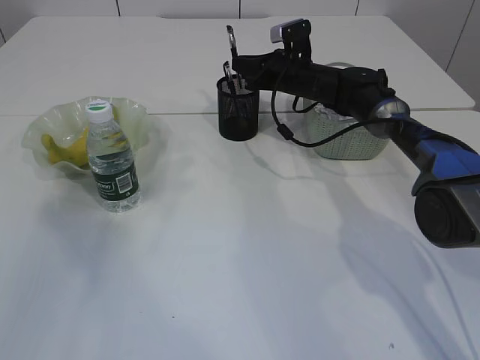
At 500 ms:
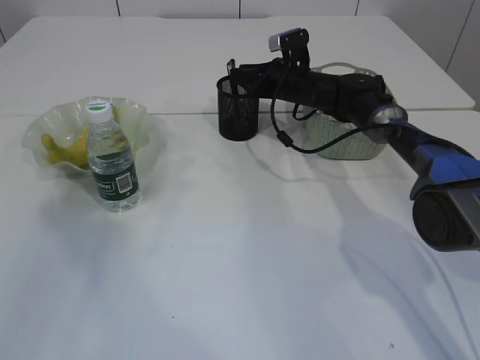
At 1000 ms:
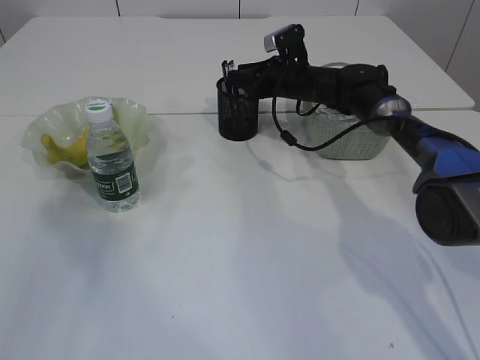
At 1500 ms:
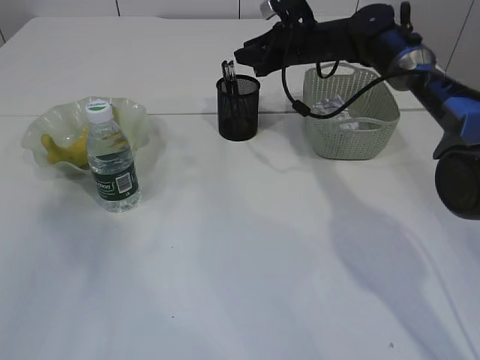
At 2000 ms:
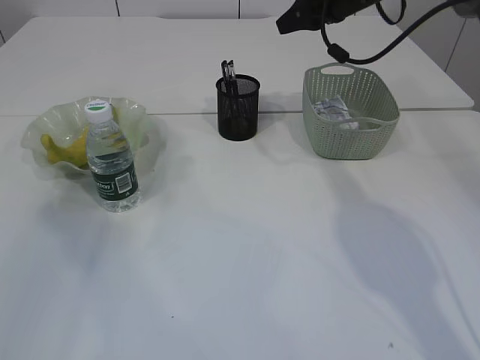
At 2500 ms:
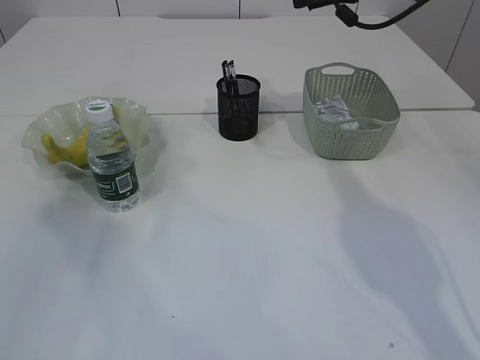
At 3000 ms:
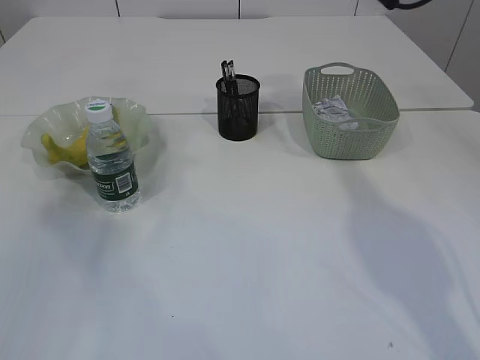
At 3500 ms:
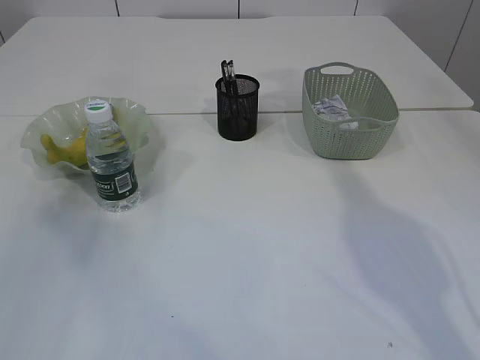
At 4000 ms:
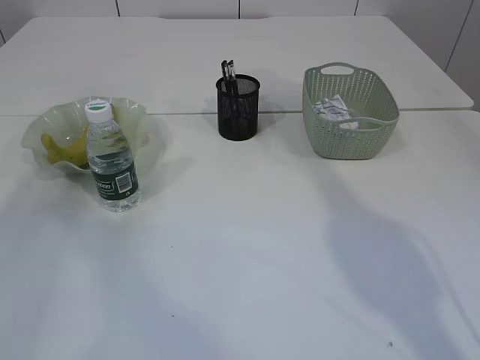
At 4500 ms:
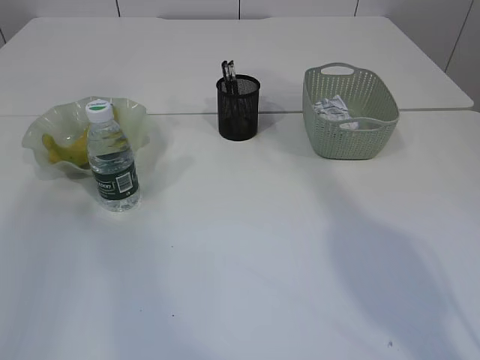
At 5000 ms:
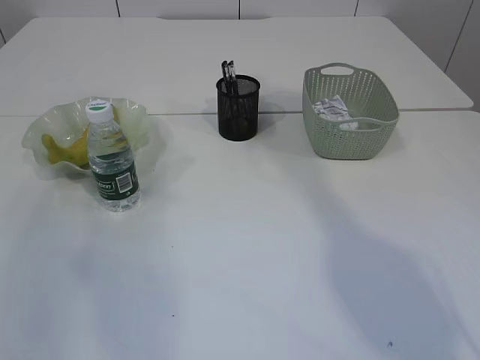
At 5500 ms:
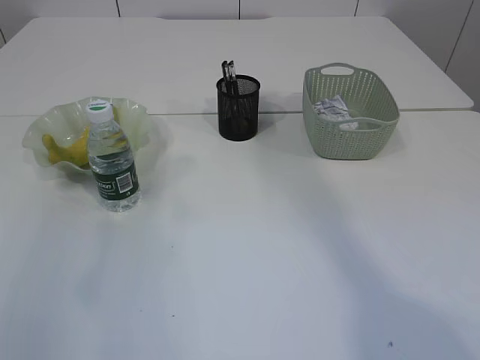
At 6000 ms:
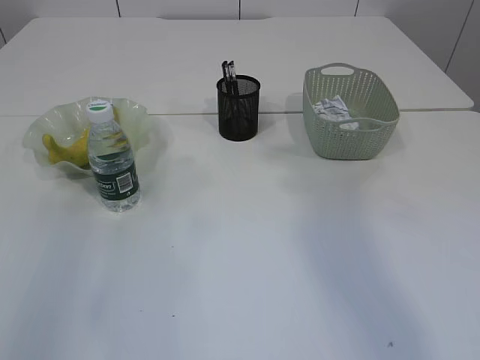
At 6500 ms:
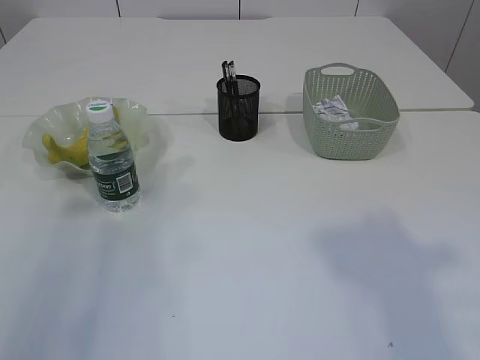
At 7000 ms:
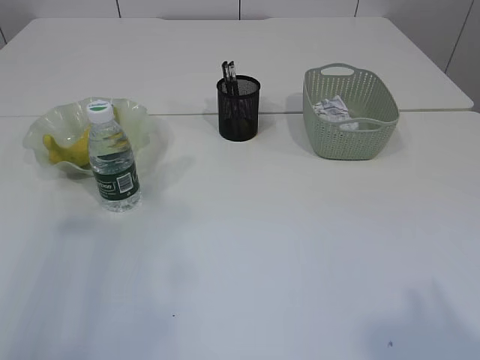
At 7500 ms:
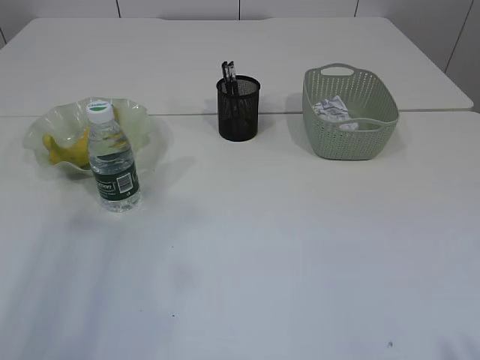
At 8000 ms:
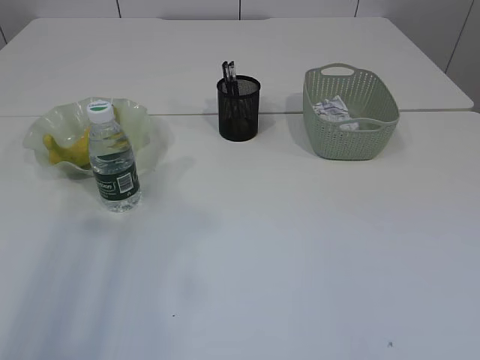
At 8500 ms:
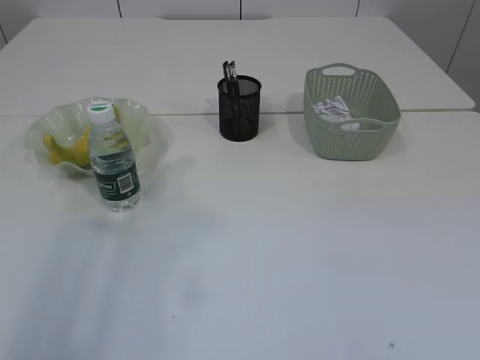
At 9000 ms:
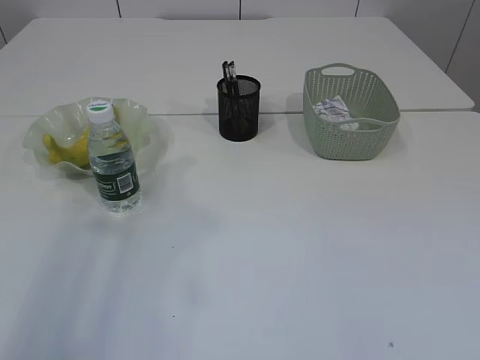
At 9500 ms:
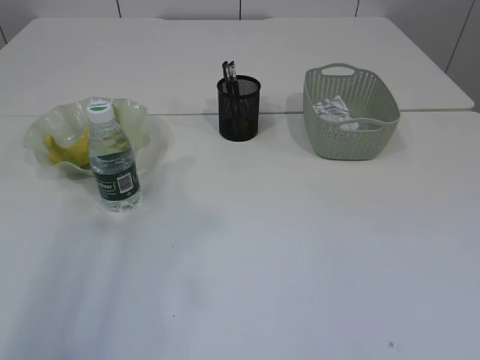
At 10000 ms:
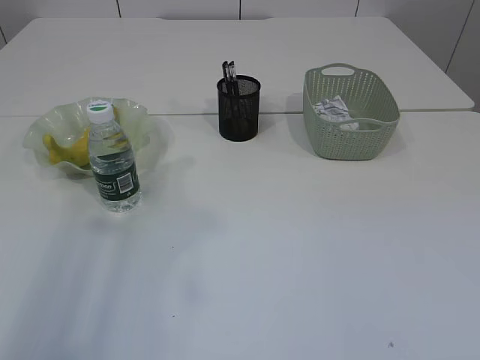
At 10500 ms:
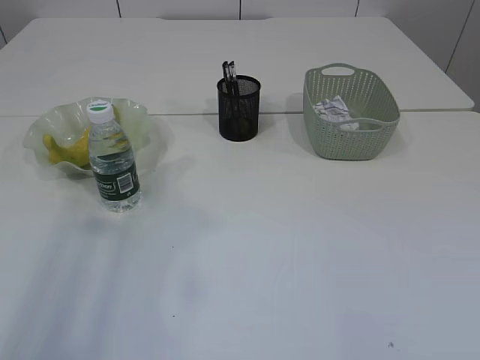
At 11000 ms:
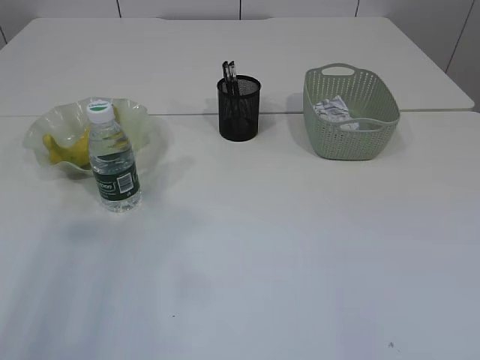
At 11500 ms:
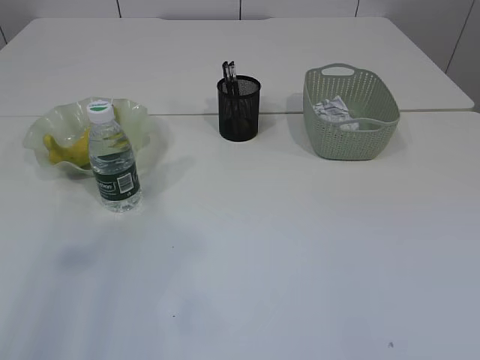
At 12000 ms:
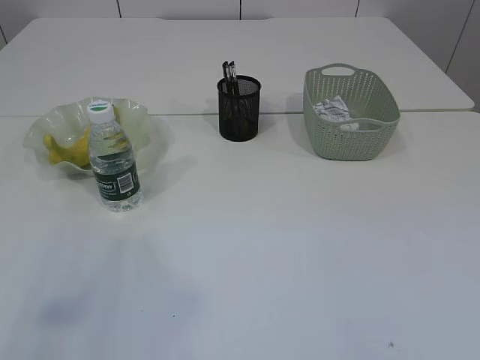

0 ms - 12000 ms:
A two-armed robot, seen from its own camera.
0 ms - 2000 ms: The right gripper shifts some 15 cm upward.
2000 ms - 4000 ms: The right gripper travels upward and to the right by some 15 cm. The left gripper ends up some 5 cm from where it was.
4000 ms - 6000 ms: The right gripper heads backward, covering approximately 25 cm.

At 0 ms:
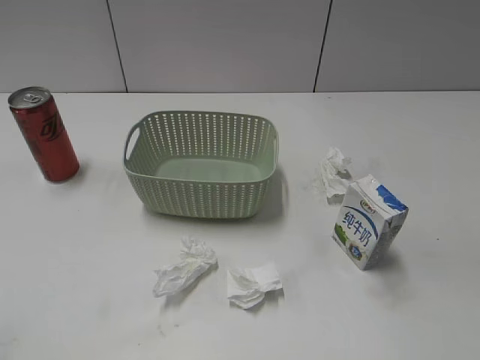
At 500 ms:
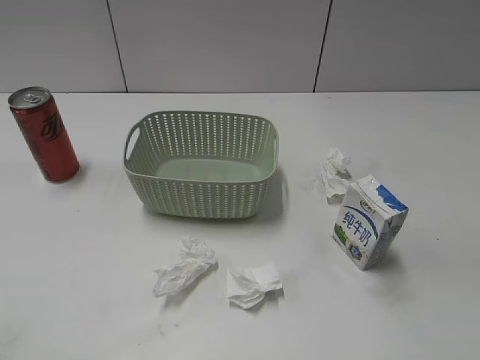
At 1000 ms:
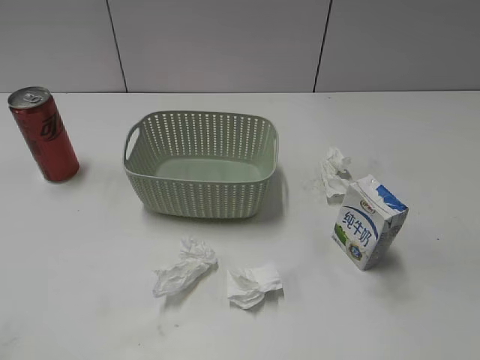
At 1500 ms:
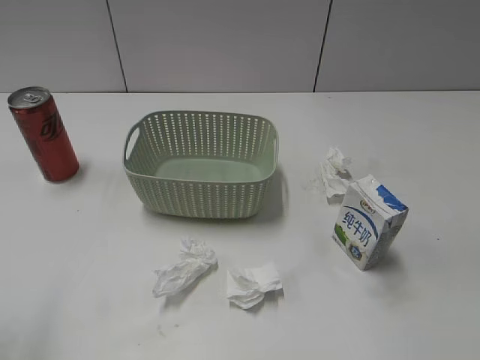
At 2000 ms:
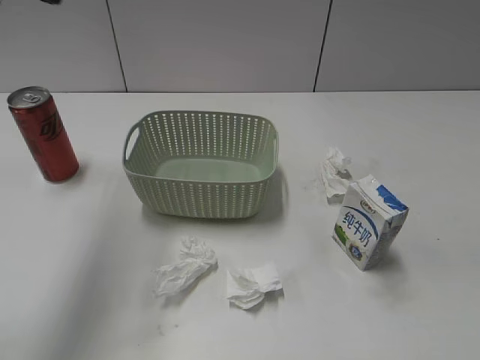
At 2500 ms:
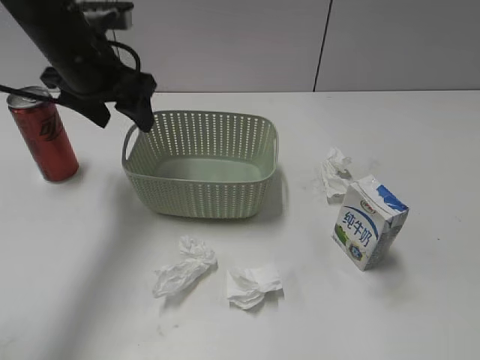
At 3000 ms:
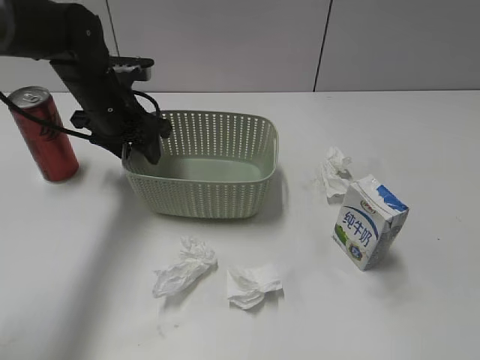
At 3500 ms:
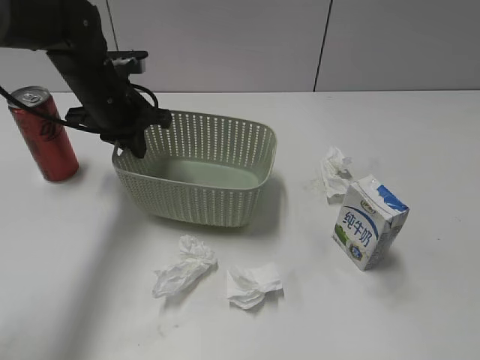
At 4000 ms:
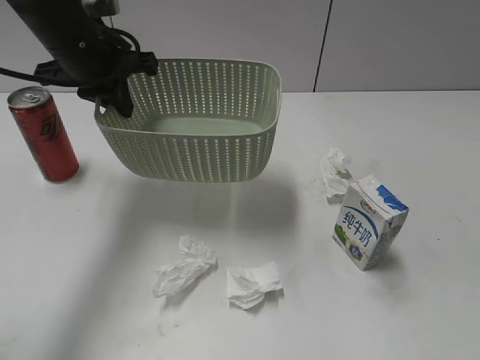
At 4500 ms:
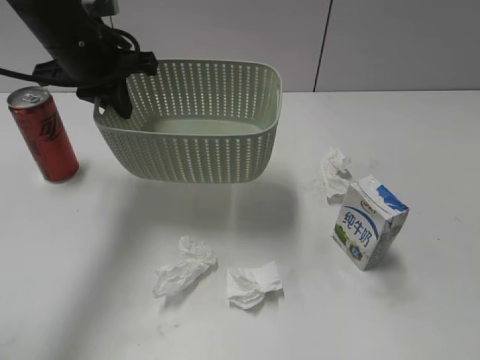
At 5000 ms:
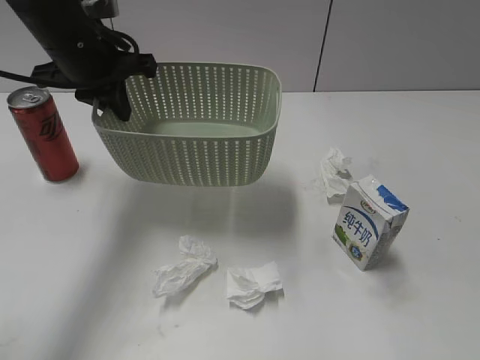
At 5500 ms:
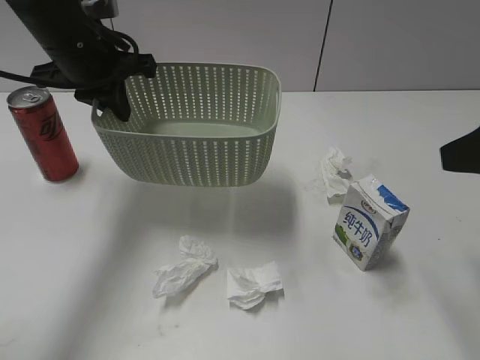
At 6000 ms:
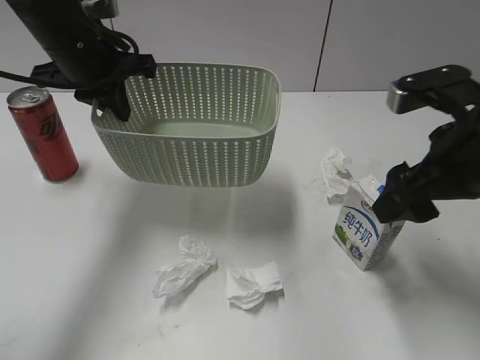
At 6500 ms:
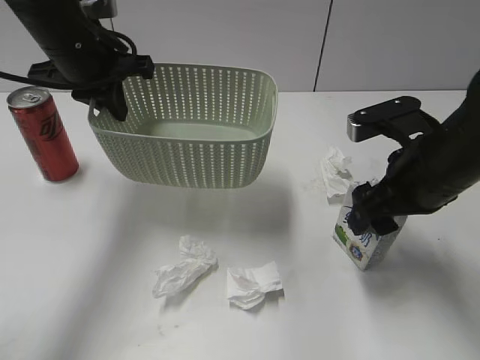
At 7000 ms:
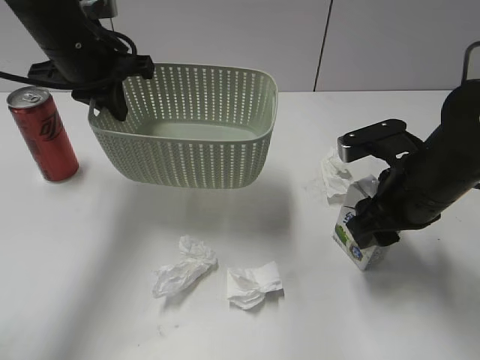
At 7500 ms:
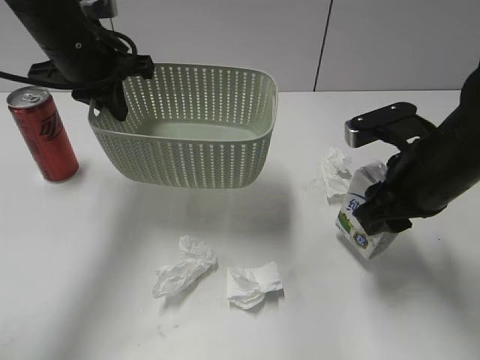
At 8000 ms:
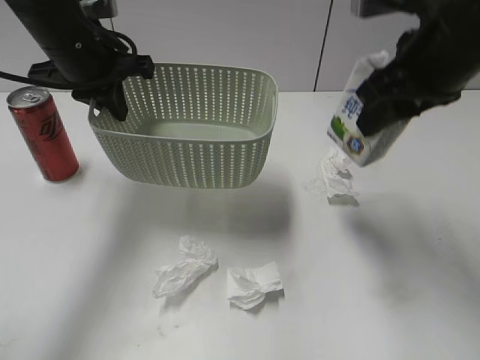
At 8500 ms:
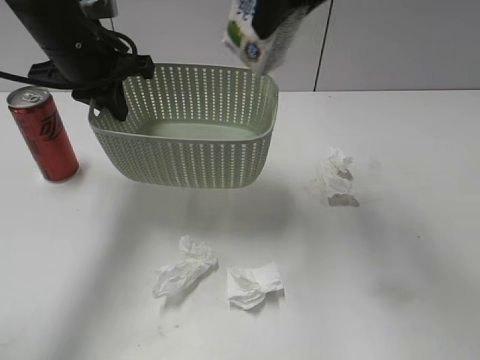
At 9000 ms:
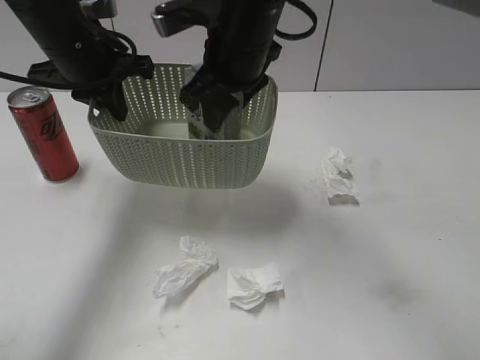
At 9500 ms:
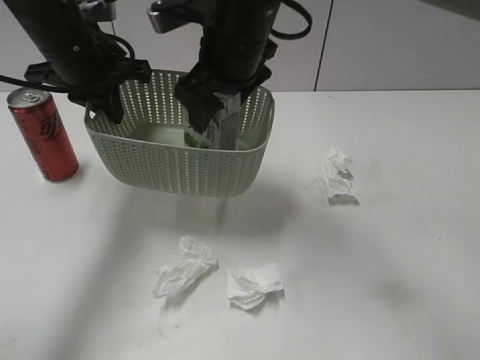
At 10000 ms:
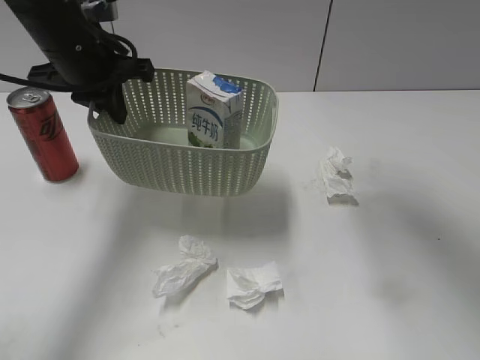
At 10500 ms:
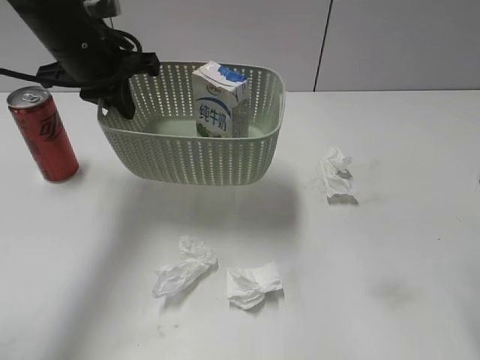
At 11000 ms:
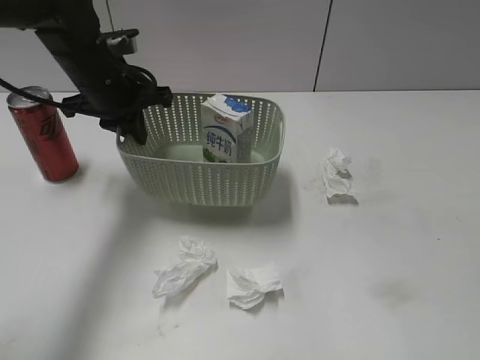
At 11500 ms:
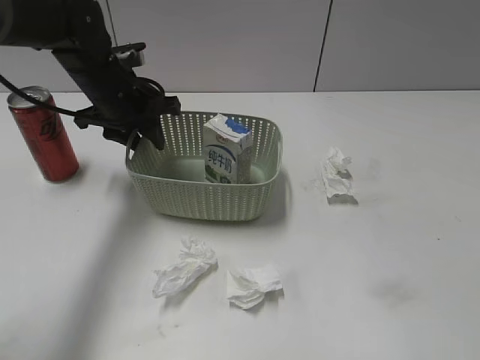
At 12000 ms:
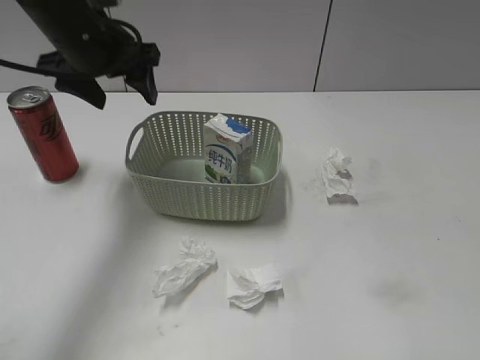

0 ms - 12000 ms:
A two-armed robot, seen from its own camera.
Step, 2000 ms - 3000 ms: Grasp the basket with left gripper.
Step, 3500 ms - 4000 ms: Lift the basket with left gripper.
Step, 4500 ms - 7000 ms: Grasp the milk with right gripper.
Step, 7500 ms - 9500 ms: Place the milk in the basket with right gripper.
Step, 10000 ms - 12000 ms: Place the basket on the table with left gripper.
2000 ms - 4000 ms: The left gripper travels downward, forward and to the right by some 20 cm, and closes its fingers.
4000 ms - 6000 ms: The right gripper goes about 25 cm forward, and opens up.
6000 ms - 8000 ms: The right gripper reaches roughly 10 cm downward, then returns, and closes.
8000 ms - 10000 ms: The right gripper is displaced upward and to the left by some 15 cm, and opens.
10000 ms - 12000 ms: The right gripper travels backward, to the right and downward by roughly 35 cm. Meanwhile the left gripper reaches about 10 cm downward, then returns, and opens up.

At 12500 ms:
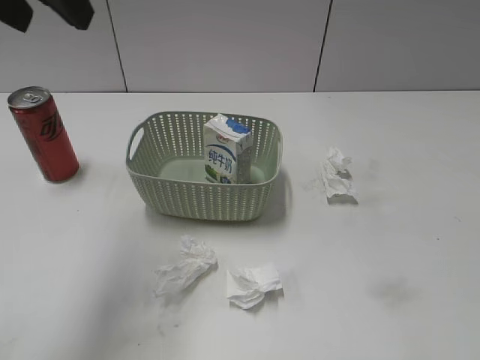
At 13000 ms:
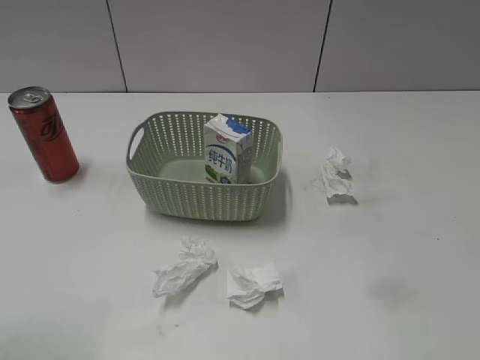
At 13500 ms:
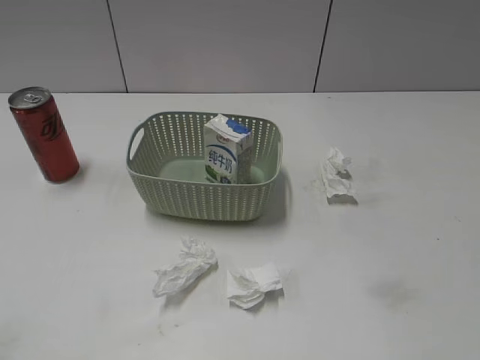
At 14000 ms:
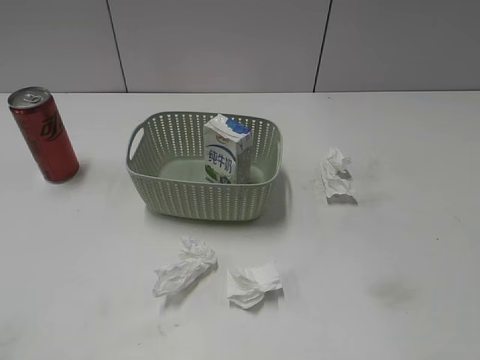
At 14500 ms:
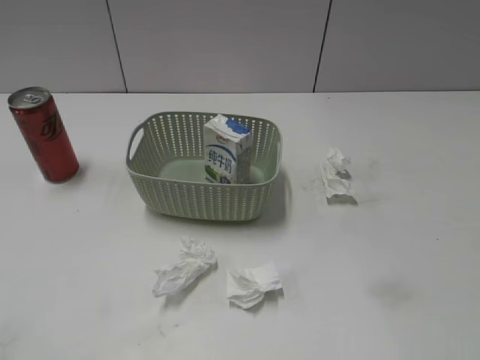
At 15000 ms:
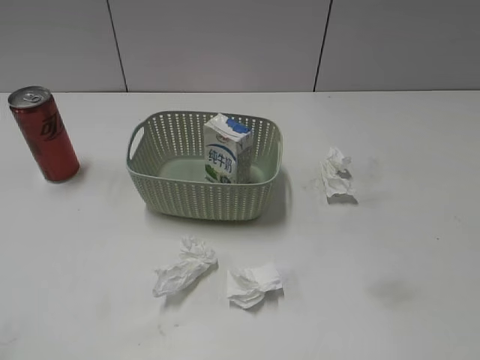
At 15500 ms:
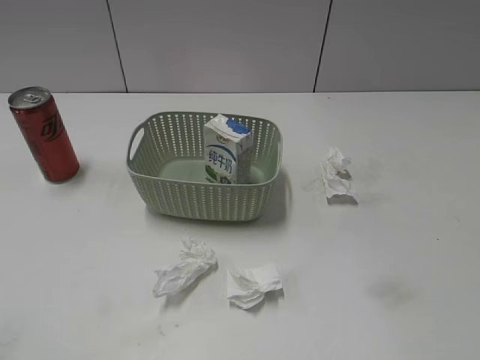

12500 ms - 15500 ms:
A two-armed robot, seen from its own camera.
12500 ms - 14000 ms: The left gripper moves backward, downward and to the left, roughly 30 cm.
